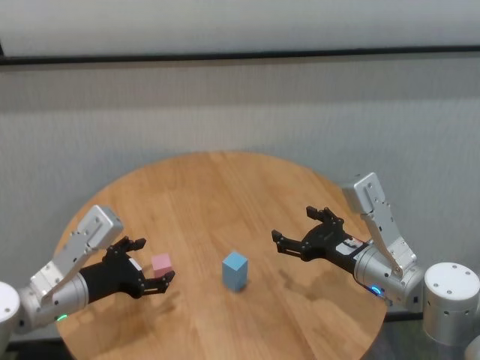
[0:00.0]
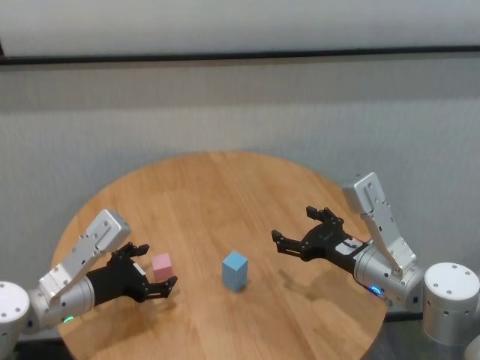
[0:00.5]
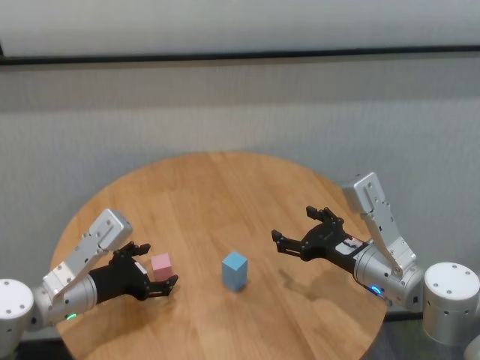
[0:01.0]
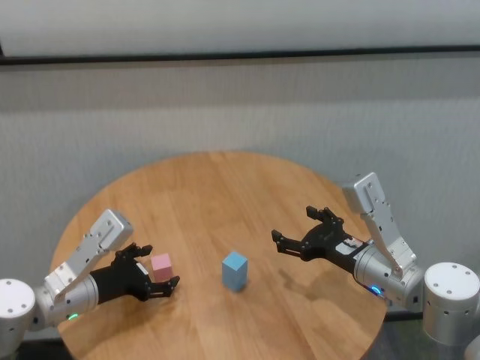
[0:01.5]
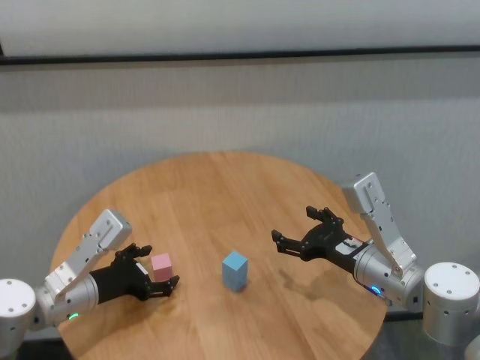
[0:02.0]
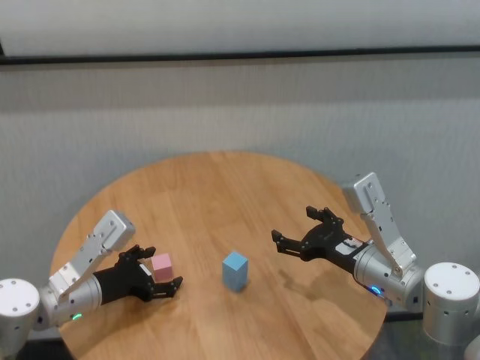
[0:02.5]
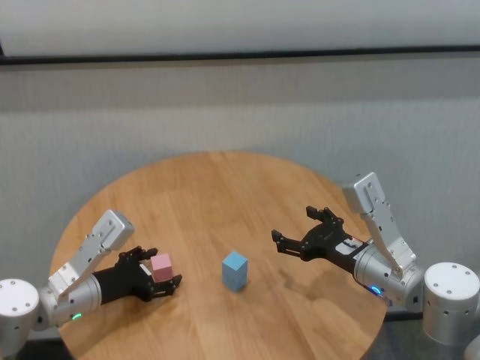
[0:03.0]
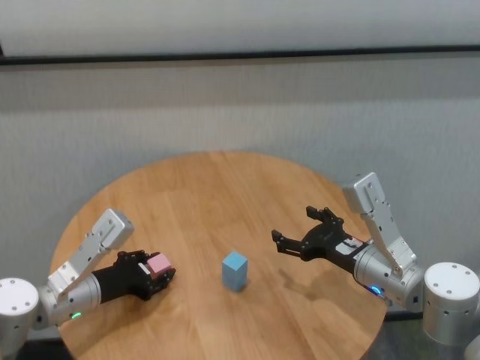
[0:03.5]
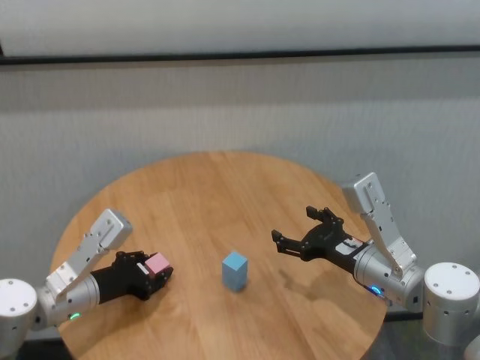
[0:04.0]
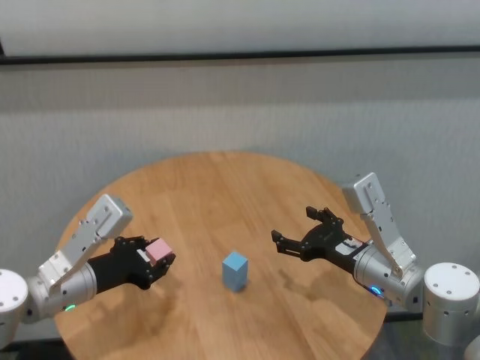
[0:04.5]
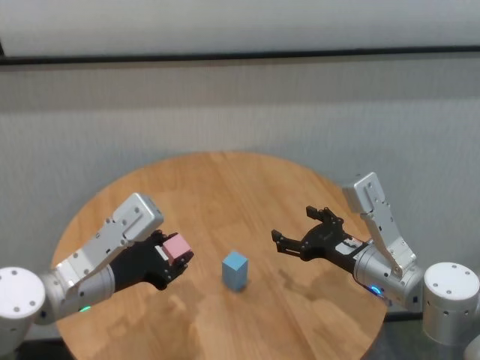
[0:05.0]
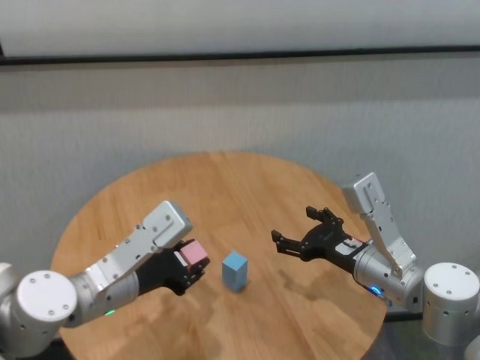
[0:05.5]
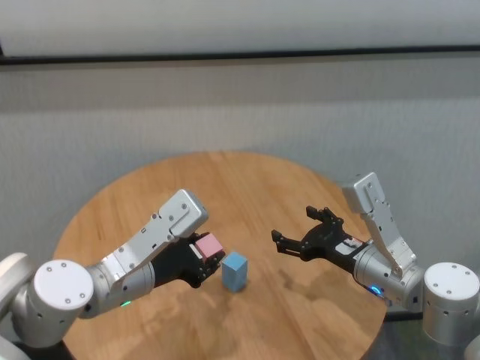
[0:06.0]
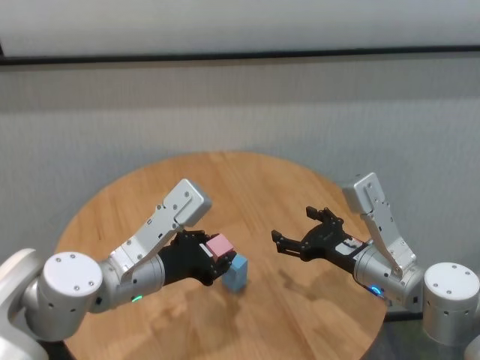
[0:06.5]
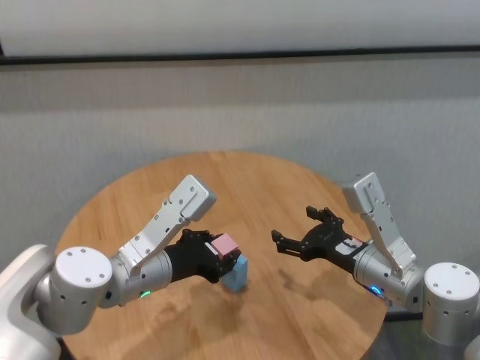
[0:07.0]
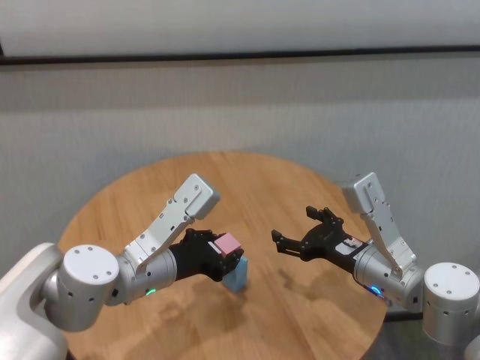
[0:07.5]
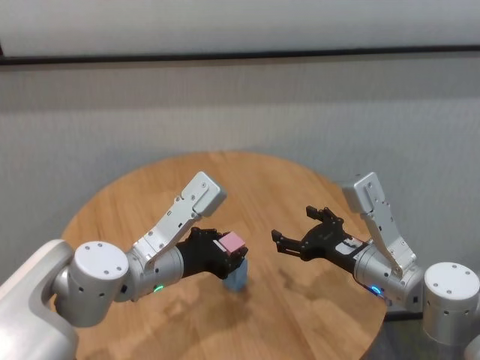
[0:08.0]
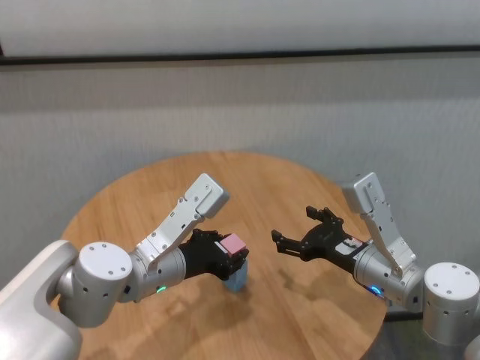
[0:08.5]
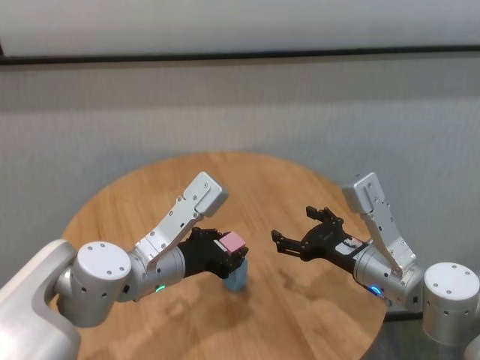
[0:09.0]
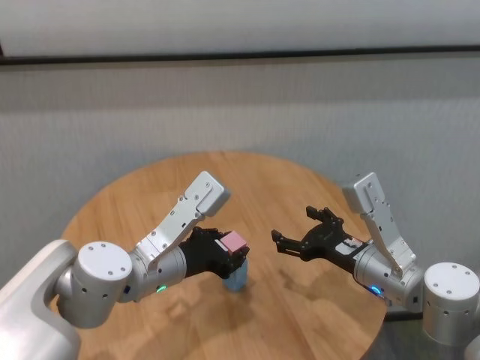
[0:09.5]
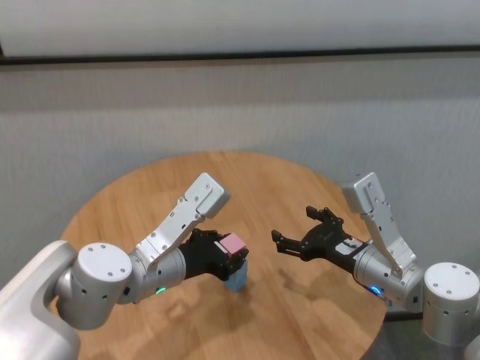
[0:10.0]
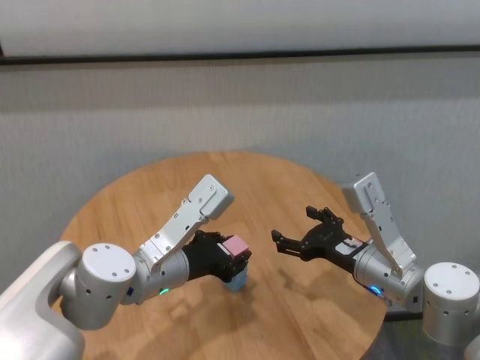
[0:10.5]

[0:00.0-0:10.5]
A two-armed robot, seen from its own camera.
Task of the whole recording: stack building blocks on the table.
Step, 0:00.0 to 0:03.5: Grasp the pink building block with left gripper.

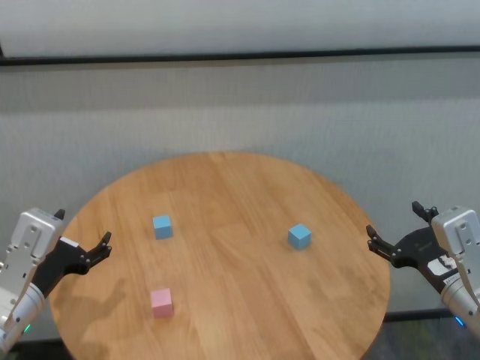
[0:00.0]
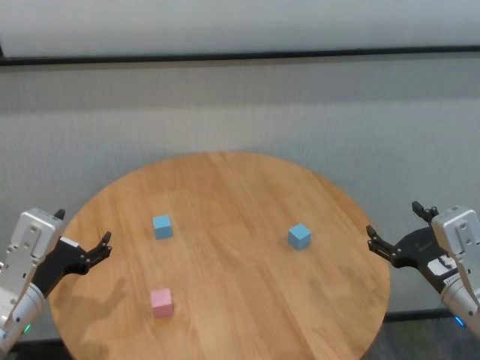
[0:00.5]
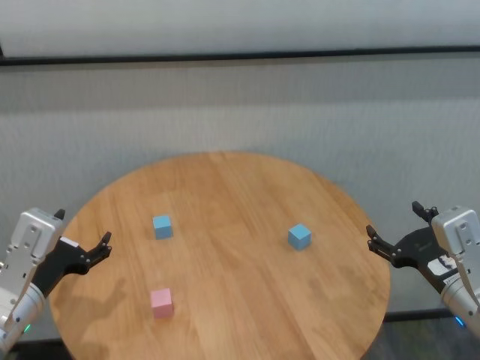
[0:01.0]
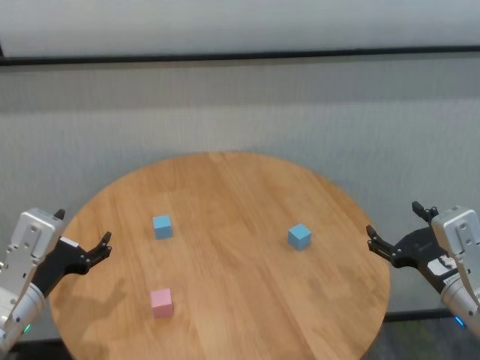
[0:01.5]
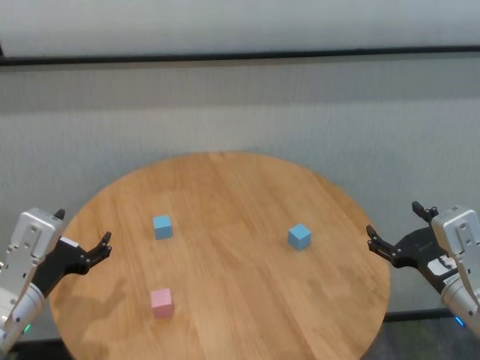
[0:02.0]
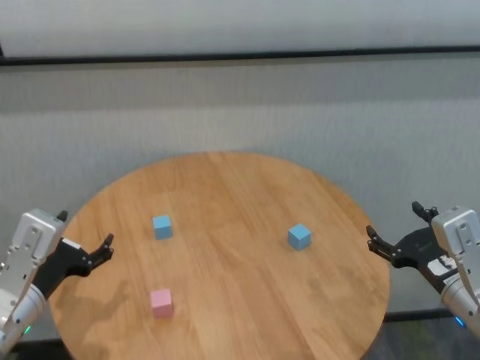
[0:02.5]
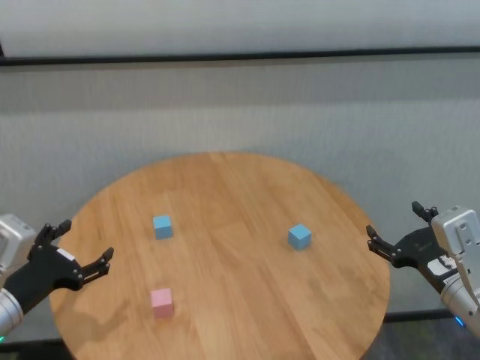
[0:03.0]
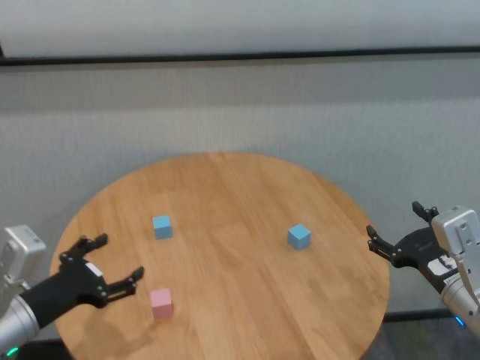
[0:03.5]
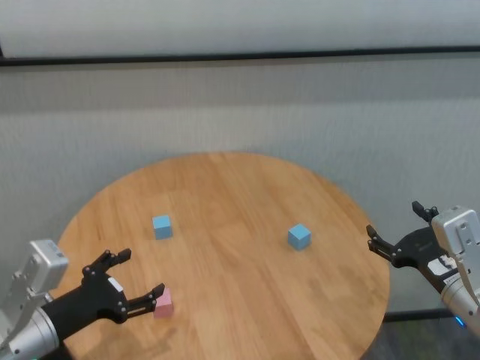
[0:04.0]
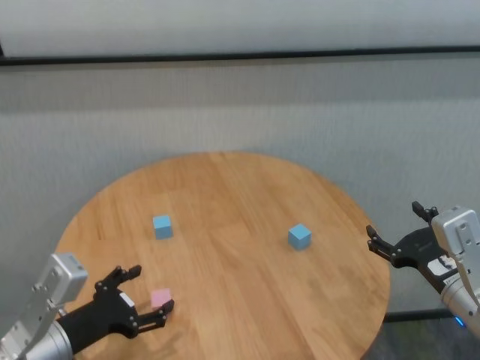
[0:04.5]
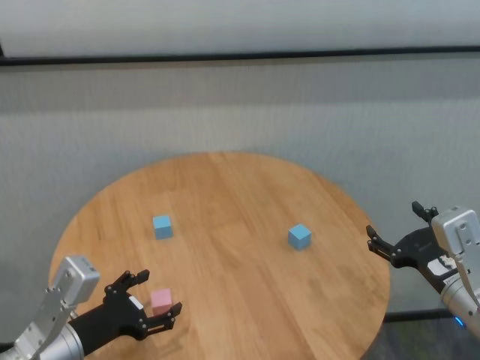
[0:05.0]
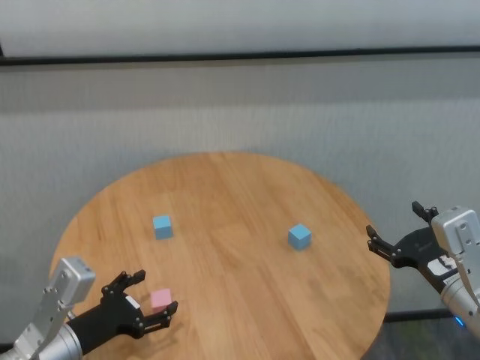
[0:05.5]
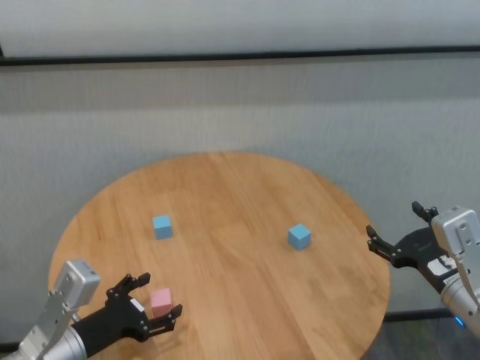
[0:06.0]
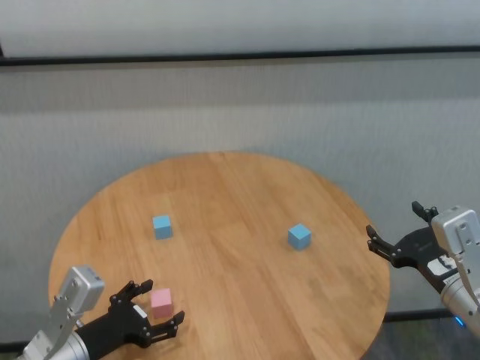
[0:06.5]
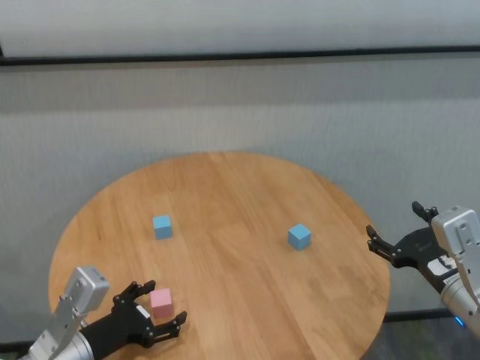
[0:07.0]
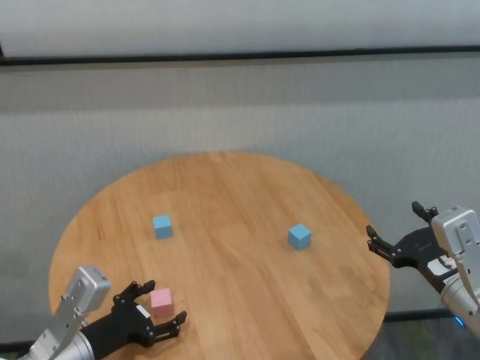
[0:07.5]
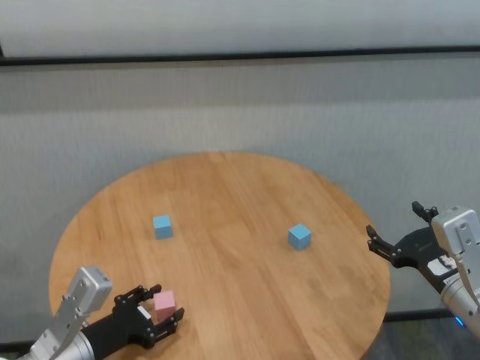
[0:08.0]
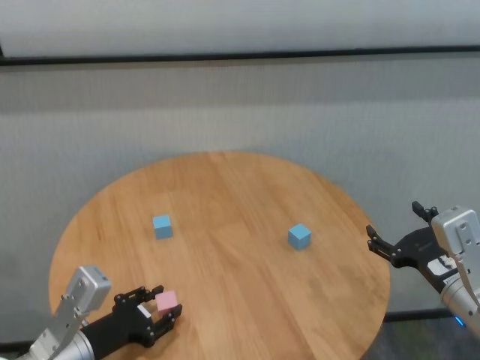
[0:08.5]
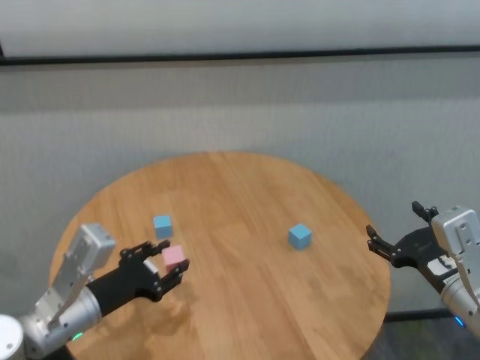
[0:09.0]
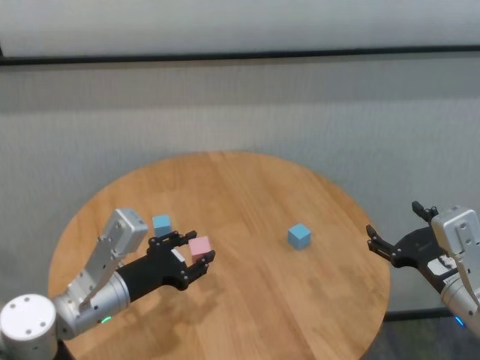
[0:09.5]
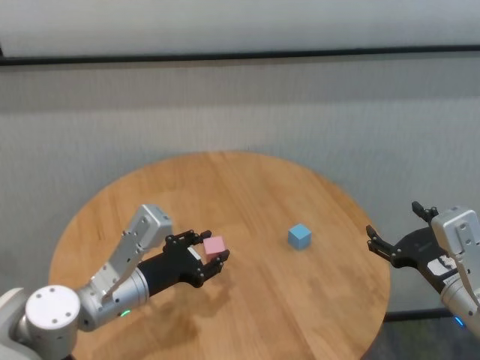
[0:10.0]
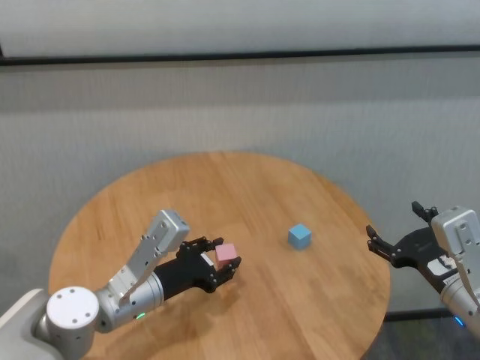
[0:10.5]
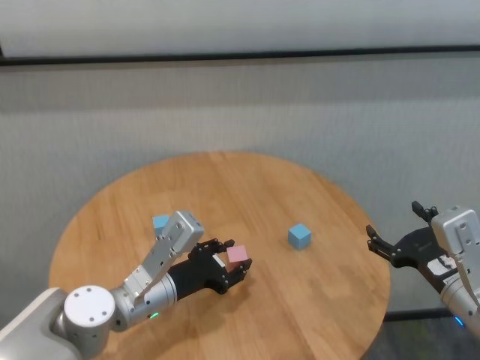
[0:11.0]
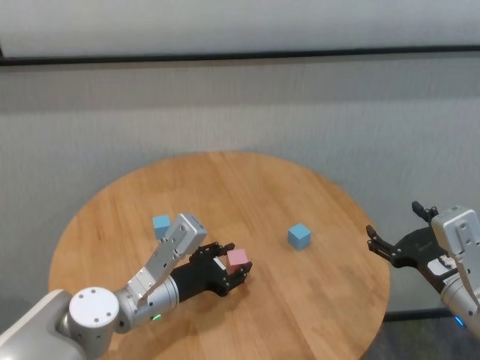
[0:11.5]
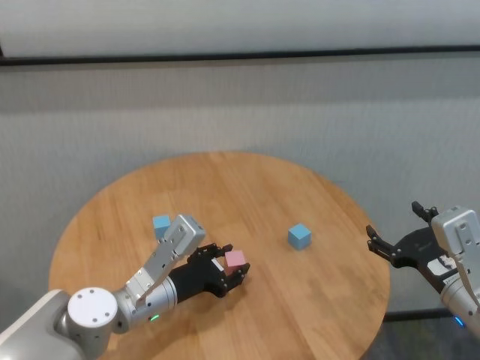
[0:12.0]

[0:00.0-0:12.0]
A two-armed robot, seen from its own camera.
Task of the whole recording: stack building blocks on the table.
Step, 0:00.0 to 0:08.0: Grasp the pink building block with left gripper.

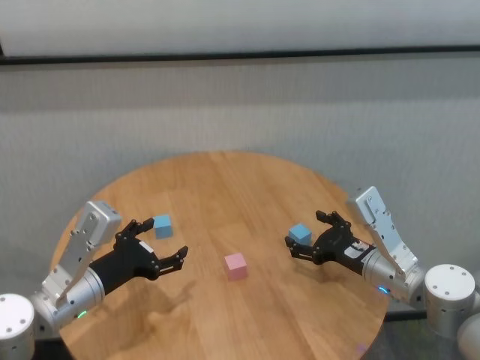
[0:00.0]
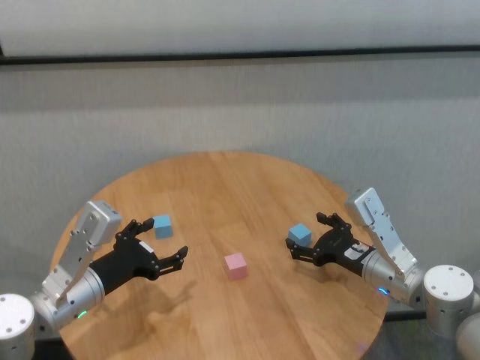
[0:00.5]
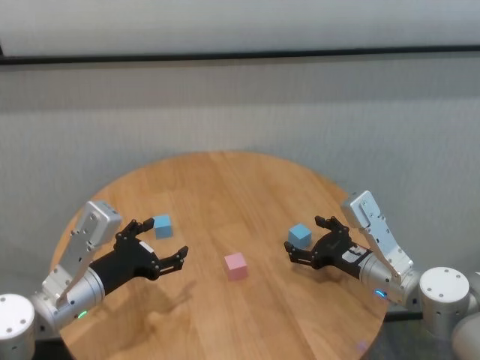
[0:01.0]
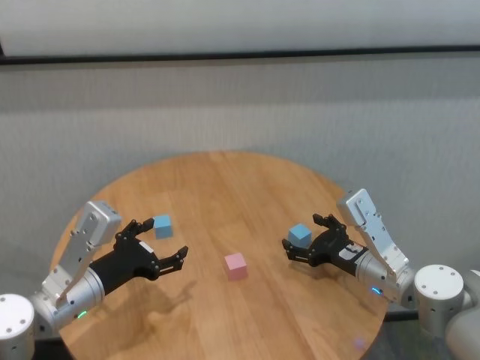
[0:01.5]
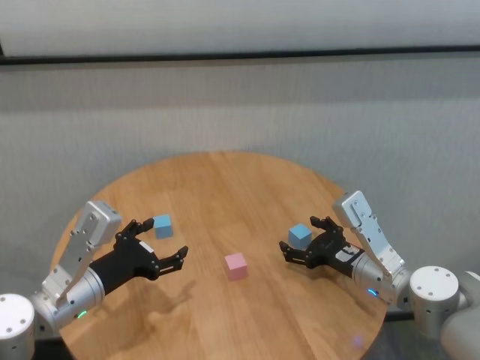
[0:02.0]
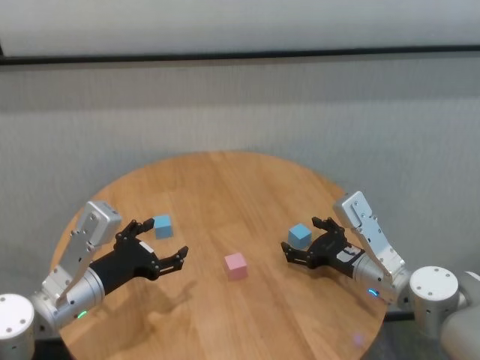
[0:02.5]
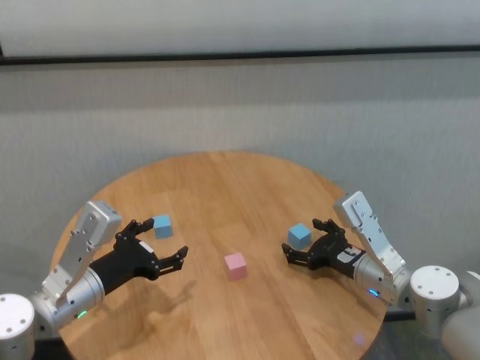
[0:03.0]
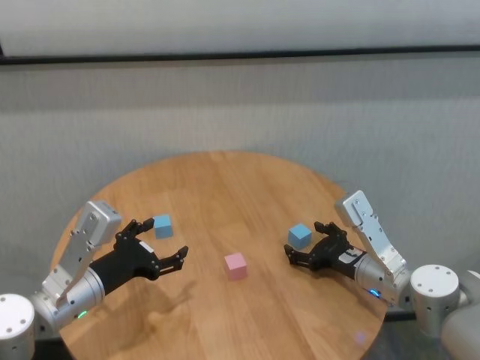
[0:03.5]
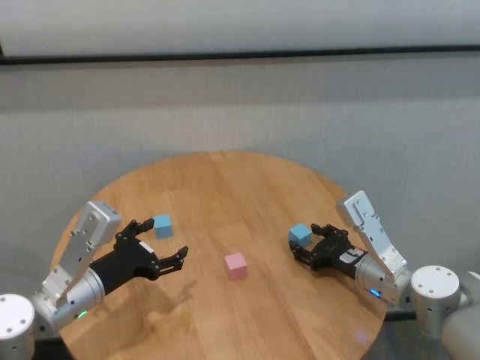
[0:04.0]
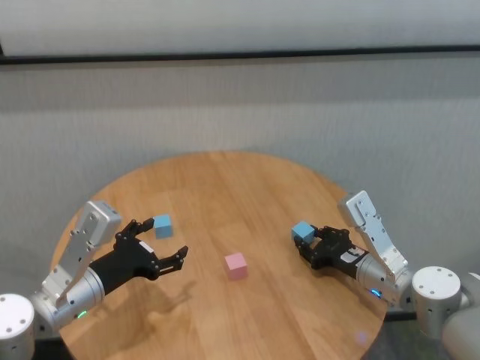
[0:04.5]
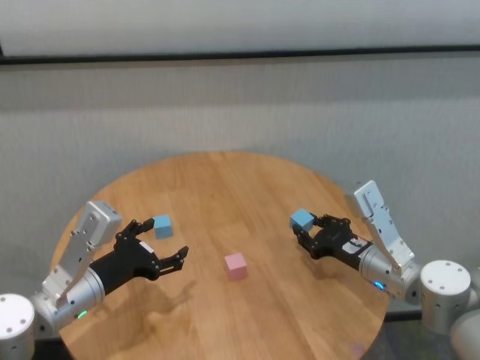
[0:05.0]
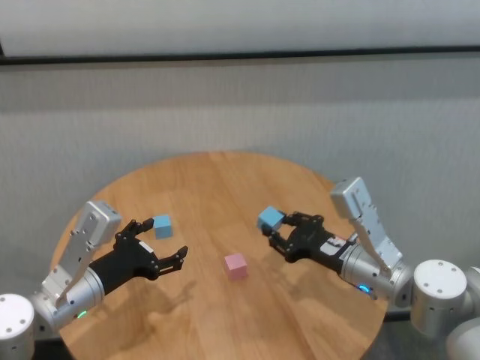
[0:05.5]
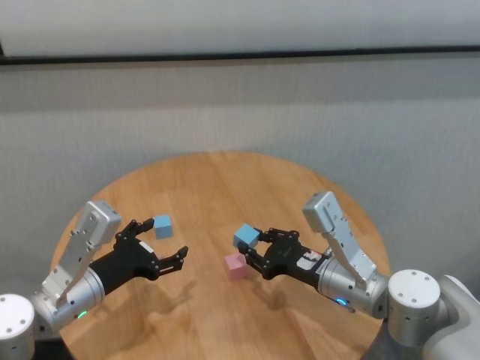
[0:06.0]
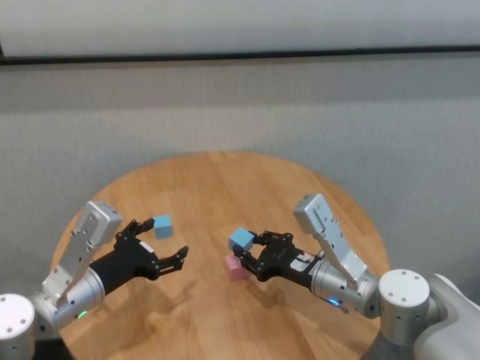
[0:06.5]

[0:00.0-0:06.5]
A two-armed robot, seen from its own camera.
Task of the whole recording: stack building blocks on the table.
Step, 0:00.0 to 0:04.0: Grasp the blue building block with right gripper.
